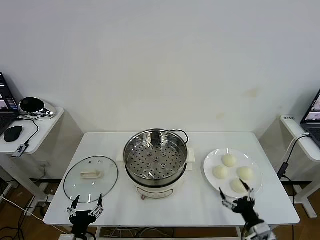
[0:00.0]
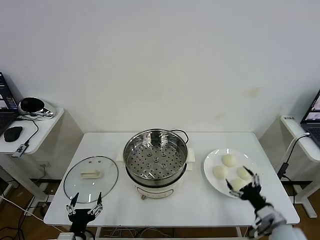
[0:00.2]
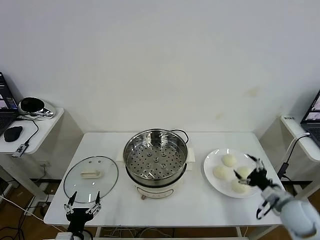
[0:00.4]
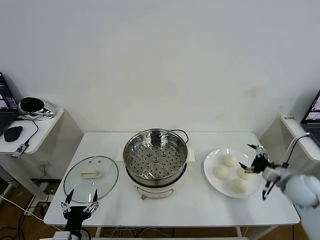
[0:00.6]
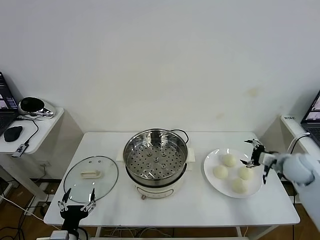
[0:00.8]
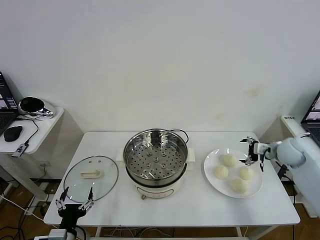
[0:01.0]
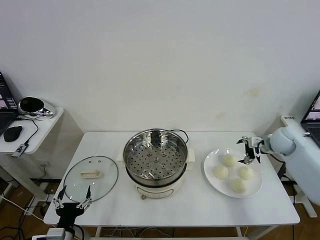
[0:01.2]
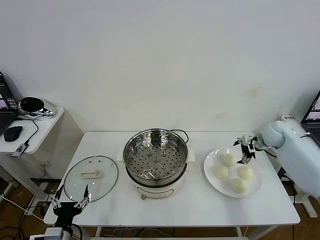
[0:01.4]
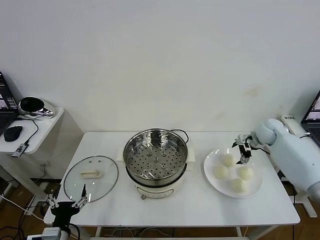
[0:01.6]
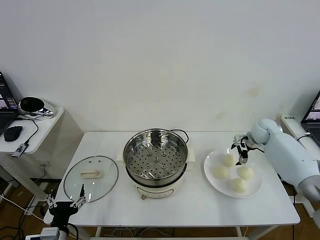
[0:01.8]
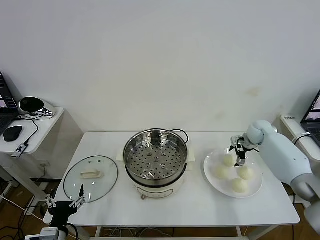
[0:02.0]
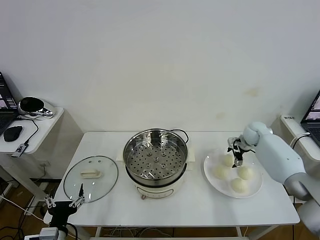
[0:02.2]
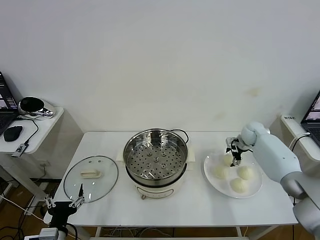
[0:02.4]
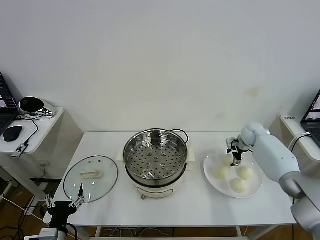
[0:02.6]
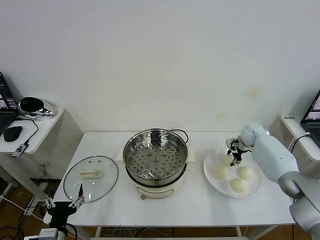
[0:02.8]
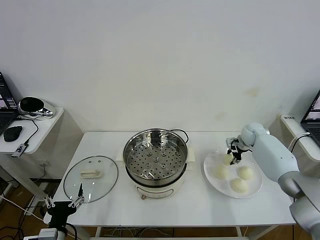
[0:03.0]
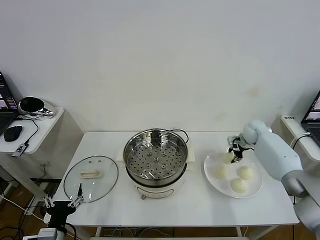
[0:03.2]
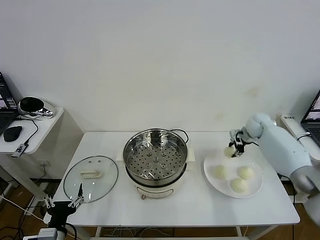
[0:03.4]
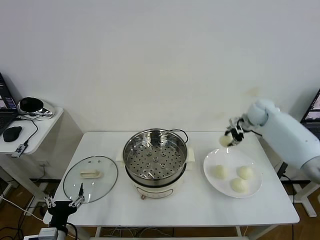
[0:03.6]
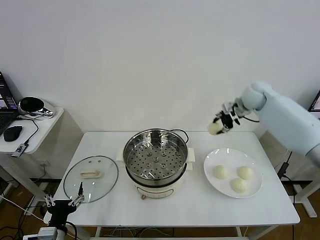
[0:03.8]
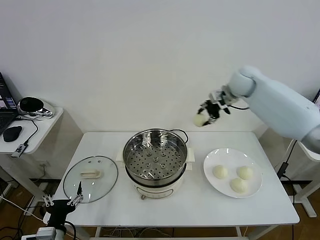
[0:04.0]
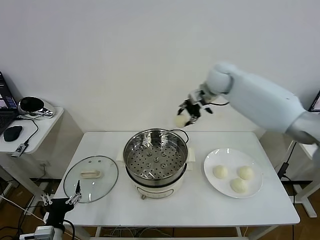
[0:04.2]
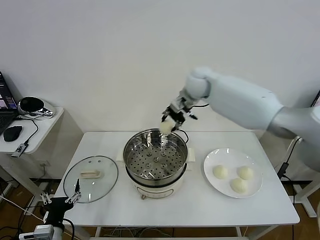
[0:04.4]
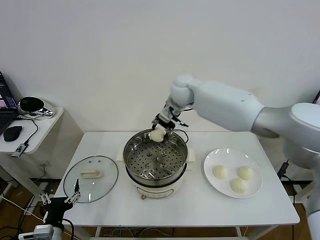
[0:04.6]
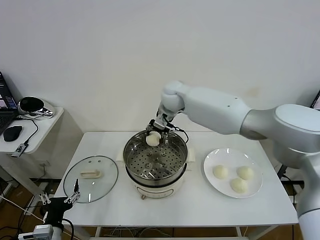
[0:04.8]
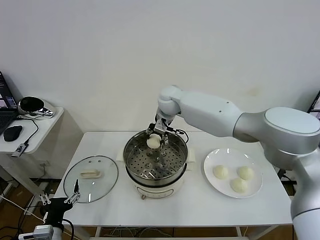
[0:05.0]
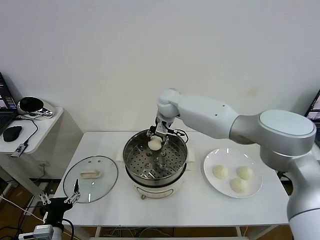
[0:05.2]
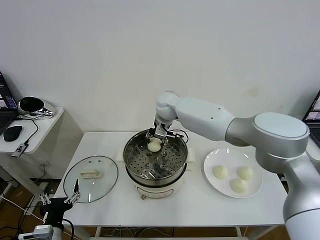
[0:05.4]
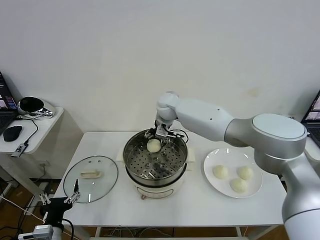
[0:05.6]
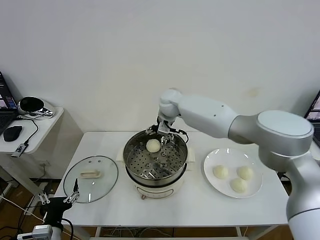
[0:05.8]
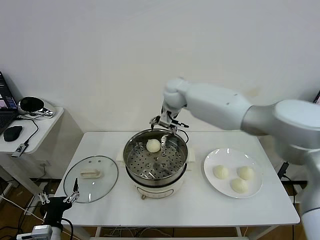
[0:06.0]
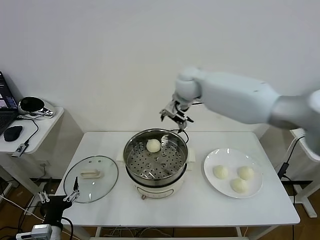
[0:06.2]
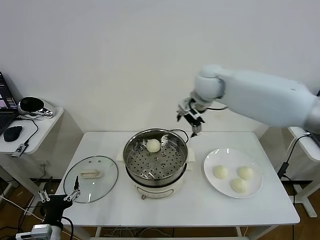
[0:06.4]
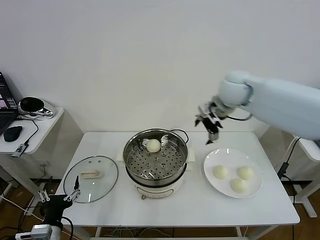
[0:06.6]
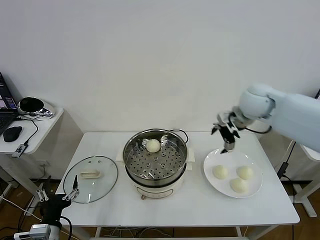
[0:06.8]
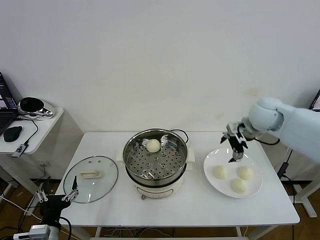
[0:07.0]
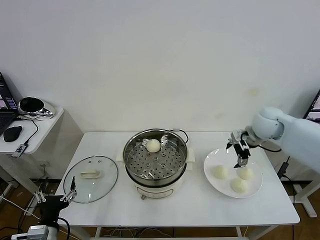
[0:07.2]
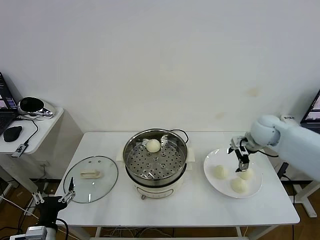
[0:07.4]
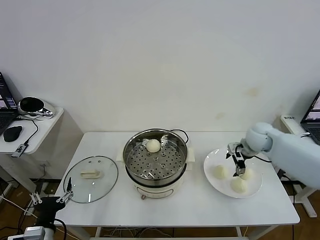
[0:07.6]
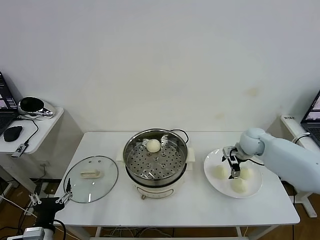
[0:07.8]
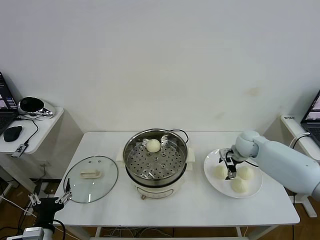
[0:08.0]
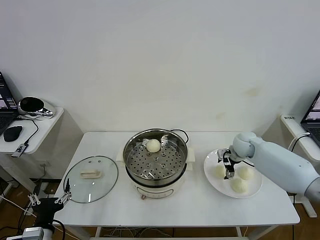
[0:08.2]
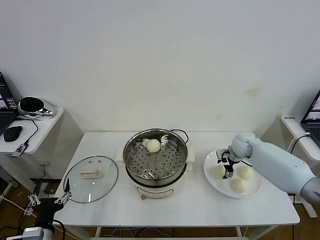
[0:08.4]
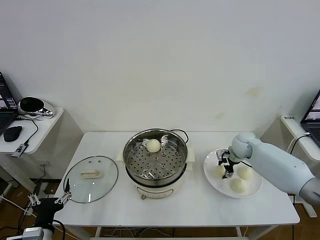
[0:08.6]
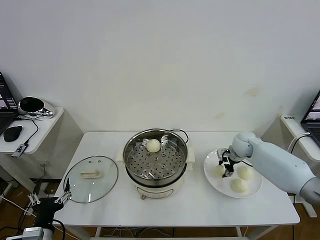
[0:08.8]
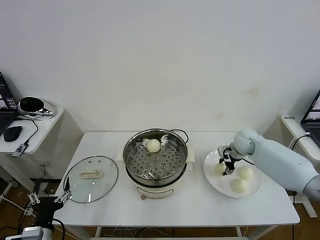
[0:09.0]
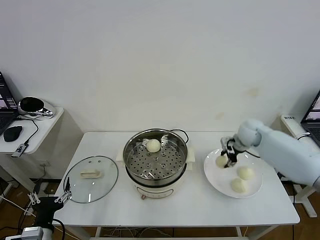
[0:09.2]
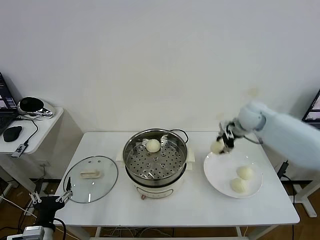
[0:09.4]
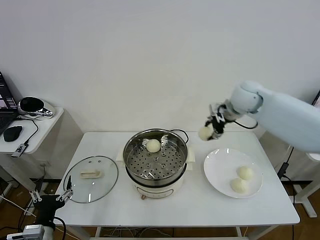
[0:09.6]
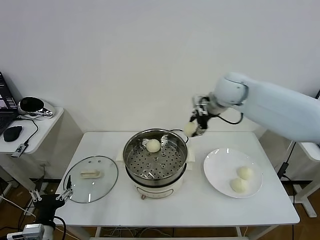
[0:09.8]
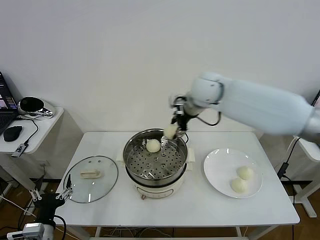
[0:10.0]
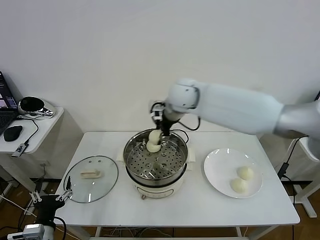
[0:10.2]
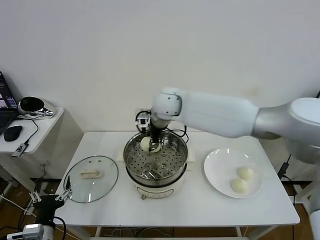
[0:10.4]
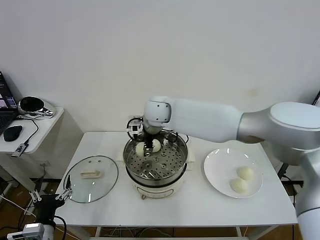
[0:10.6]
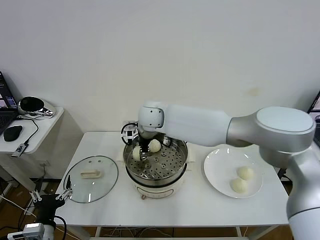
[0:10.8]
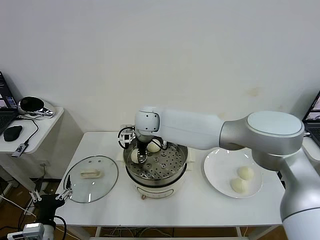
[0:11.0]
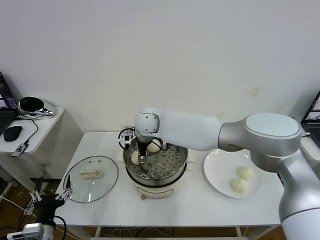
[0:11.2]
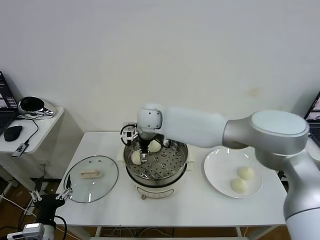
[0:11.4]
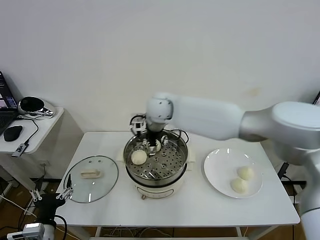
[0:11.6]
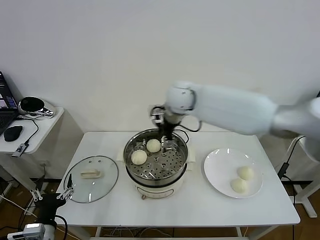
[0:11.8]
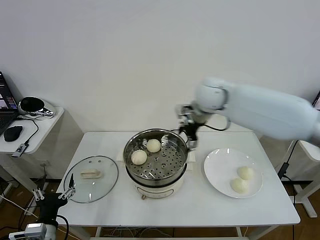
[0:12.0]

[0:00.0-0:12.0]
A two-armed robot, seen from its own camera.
Task of the whole recording: take steamed baozi put them in steamer then cover it.
Step, 0:00.0 to 0:03.0: Grasp the baozi in the plate with right gripper.
Step, 0:03.2 to 0:05.8: Place the baozi on the steamer with right gripper.
Step, 0:06.0 to 0:08.8: Grasp the baozi in the plate with right gripper.
Step, 0:09.0 to 0:11.4: Place the baozi on the steamer with right gripper.
0:01.6 to 0:03.0: The right gripper moves some 5 cm, and closes.
0:03.0 to 0:04.4: The right gripper heads to the left and upward, covering roughly 35 cm.
0:04.4 to 0:06.0: The right gripper travels downward and back again, roughly 10 cm each way, and opens.
0:06.0 to 0:07.6: The right gripper is displaced to the right and downward by roughly 30 cm.
0:07.6 to 0:09.0: The right gripper closes its fingers.
0:09.0 to 0:10.4: The right gripper is displaced to the left and upward by roughly 35 cm.
0:10.4 to 0:12.0: The right gripper goes roughly 15 cm to the right, and opens up.

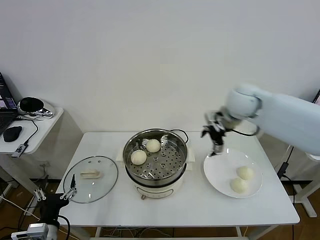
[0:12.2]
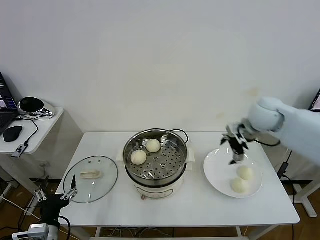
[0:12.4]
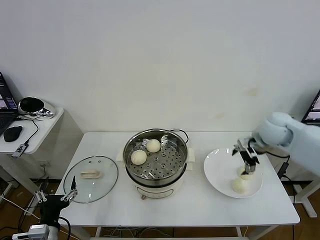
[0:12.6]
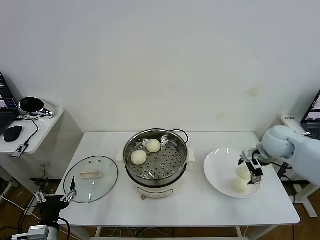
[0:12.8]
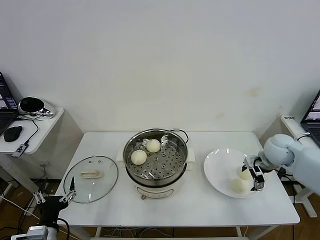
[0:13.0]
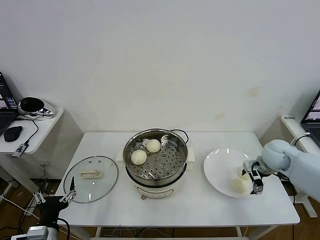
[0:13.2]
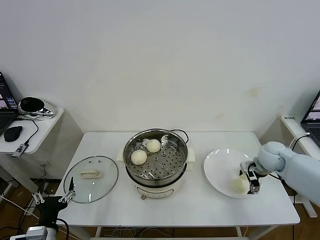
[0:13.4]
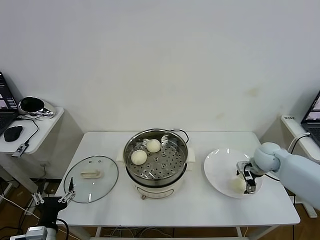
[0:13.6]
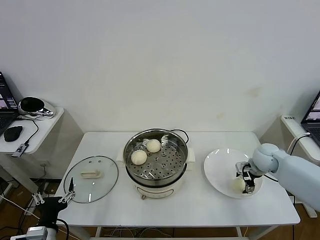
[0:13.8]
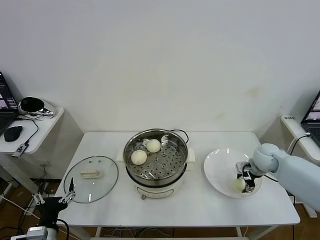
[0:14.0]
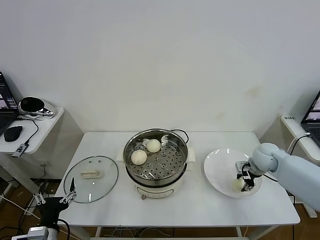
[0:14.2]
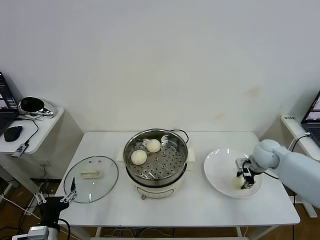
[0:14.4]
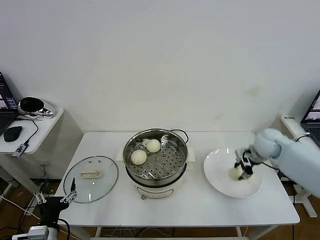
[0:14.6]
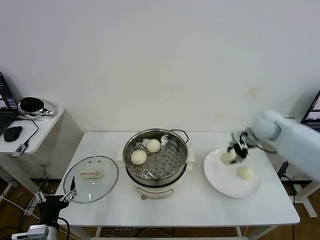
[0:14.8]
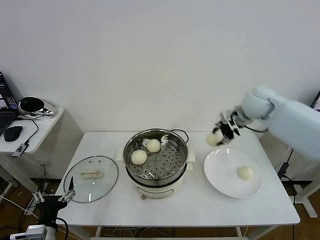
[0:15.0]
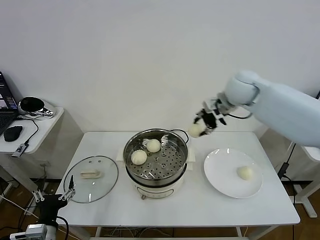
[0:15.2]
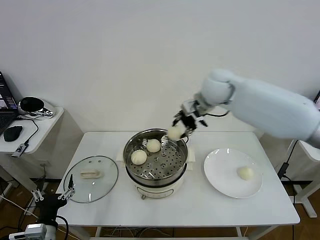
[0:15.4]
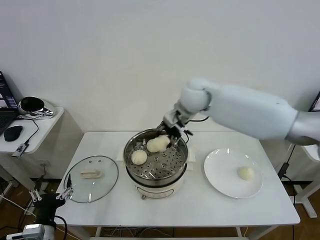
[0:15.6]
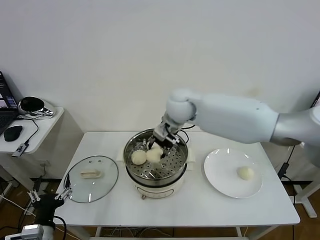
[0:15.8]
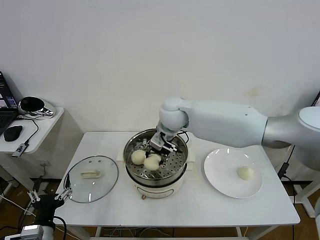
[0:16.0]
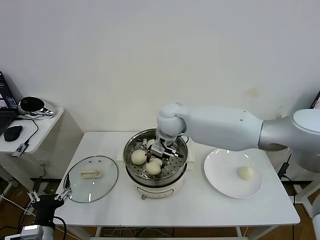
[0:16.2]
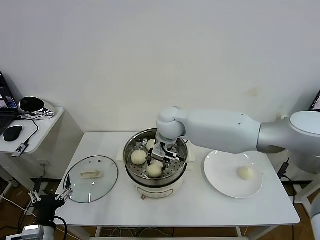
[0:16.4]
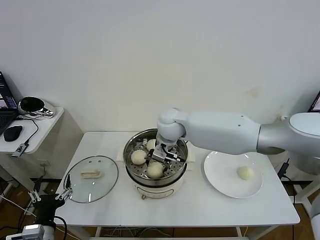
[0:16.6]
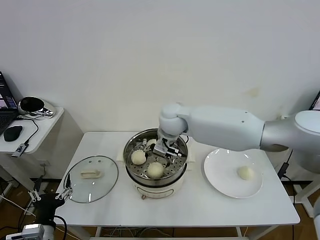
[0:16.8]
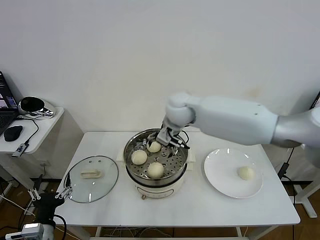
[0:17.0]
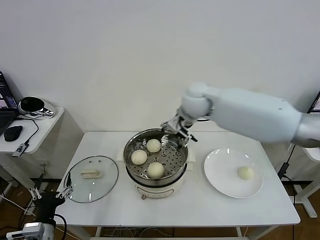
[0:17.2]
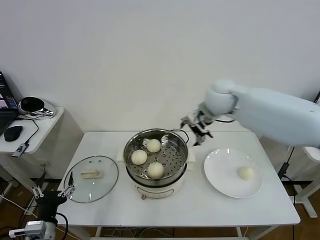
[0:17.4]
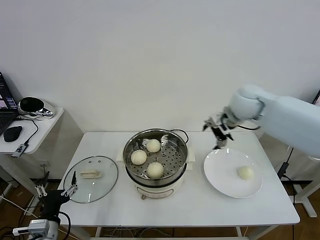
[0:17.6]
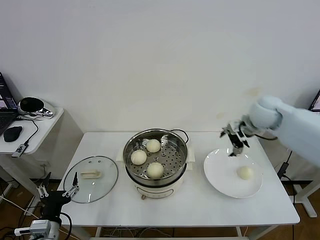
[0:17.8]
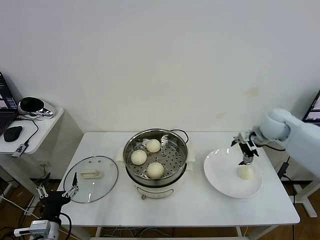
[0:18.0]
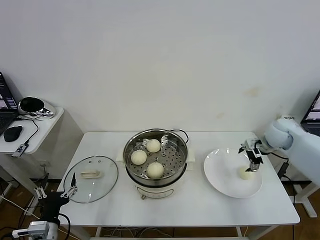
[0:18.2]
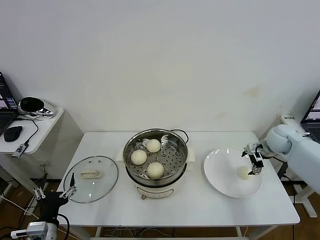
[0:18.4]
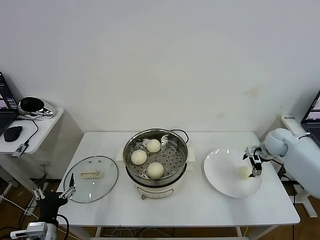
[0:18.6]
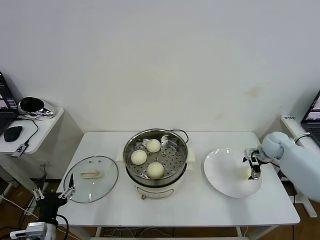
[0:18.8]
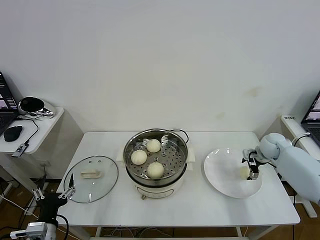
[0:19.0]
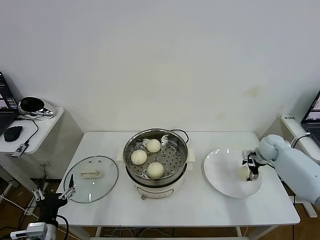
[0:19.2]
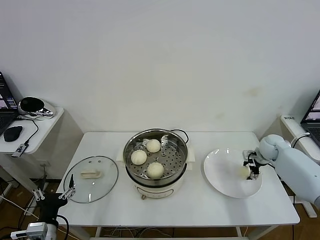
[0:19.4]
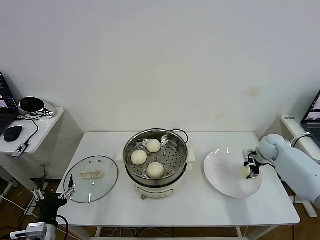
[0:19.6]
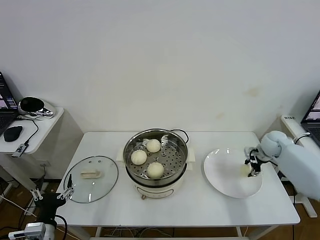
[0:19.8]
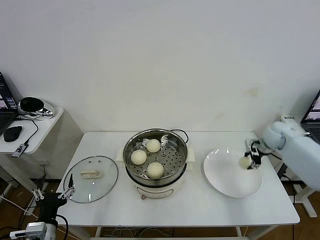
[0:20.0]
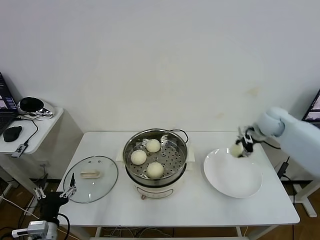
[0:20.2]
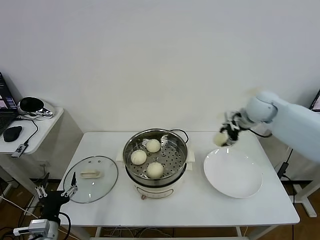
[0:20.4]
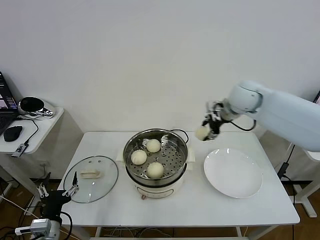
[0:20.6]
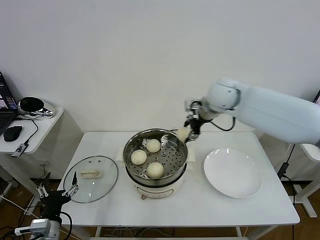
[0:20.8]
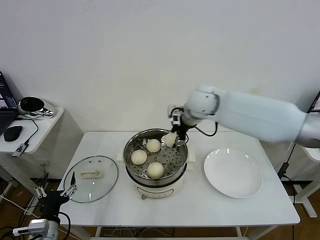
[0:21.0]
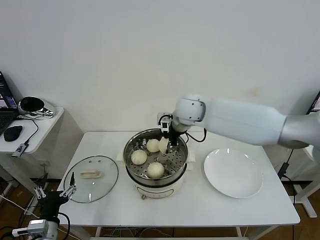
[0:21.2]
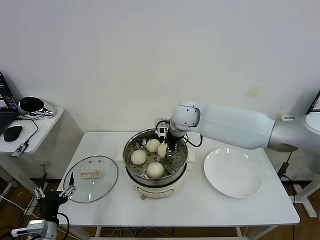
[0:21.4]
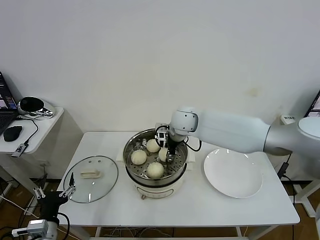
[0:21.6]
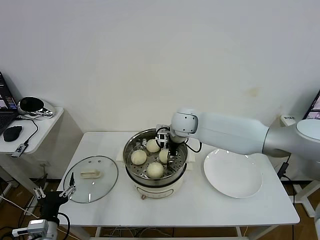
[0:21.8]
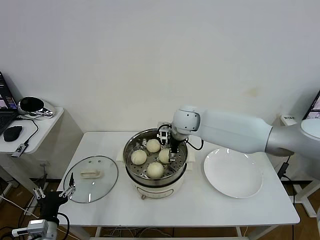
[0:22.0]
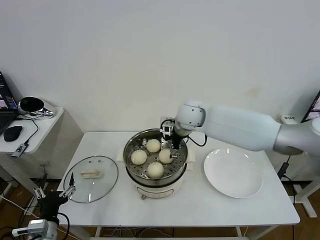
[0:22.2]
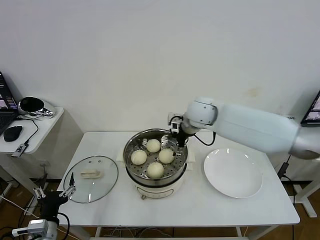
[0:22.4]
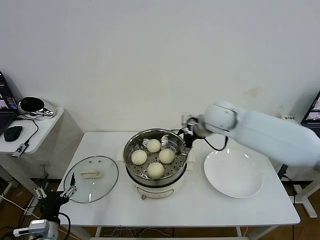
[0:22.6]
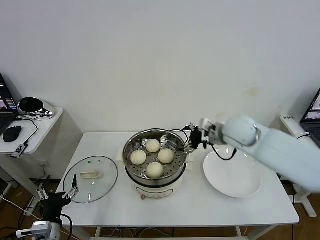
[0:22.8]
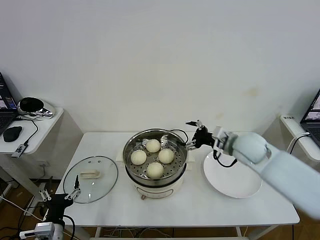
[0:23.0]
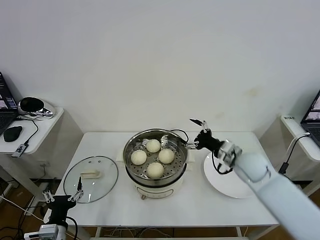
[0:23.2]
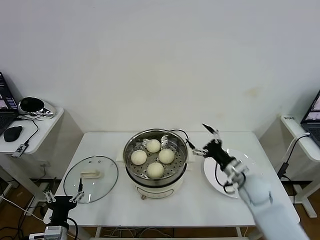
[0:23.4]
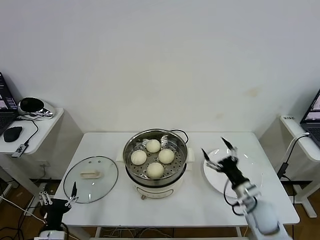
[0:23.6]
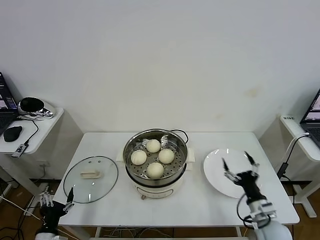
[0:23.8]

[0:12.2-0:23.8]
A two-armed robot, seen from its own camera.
Task of the whole recording: take steamed baozi put them in steamer then cover it.
Step, 0:12.2 to 0:14.2: Grasp the baozi in the plate with right gripper.
Step, 0:14.4 to 0:16.8: Place the baozi on the steamer with right gripper.
Step, 0:17.0 to 0:19.6: Grasp the baozi in the plate with right gripper.
Step, 0:20.0 to 0:22.2: Place the baozi on the steamer with right gripper.
0:12.2 to 0:13.6: The right gripper moves downward and to the right, roughly 25 cm.
0:13.6 to 0:15.0: The right gripper moves upward and to the left, some 20 cm, and closes up.
0:15.0 to 0:16.6: The right gripper goes approximately 25 cm to the left, and opens its fingers.
0:16.6 to 0:18.0: The right gripper travels to the right by roughly 35 cm, and opens.
0:18.0 to 0:19.4: The right gripper travels downward and to the right by approximately 15 cm, and closes up.
0:19.4 to 0:21.0: The right gripper is displaced to the left and upward by approximately 40 cm.
0:21.0 to 0:22.4: The right gripper opens.
0:22.4 to 0:23.8: The right gripper goes approximately 40 cm backward, downward and to the right; the left gripper is displaced downward by about 5 cm.
